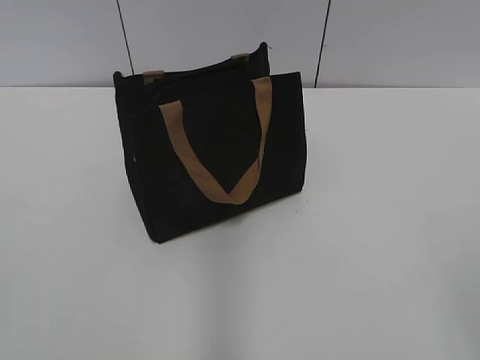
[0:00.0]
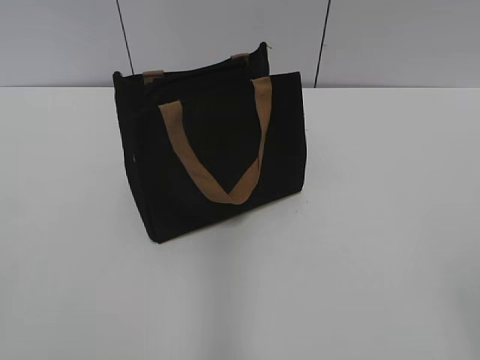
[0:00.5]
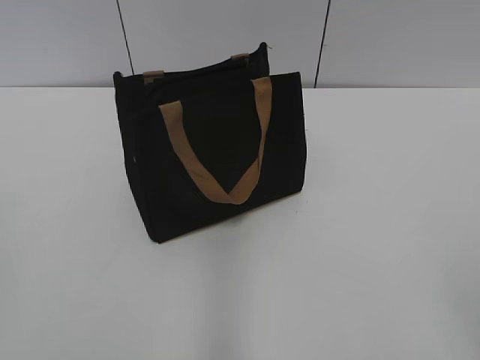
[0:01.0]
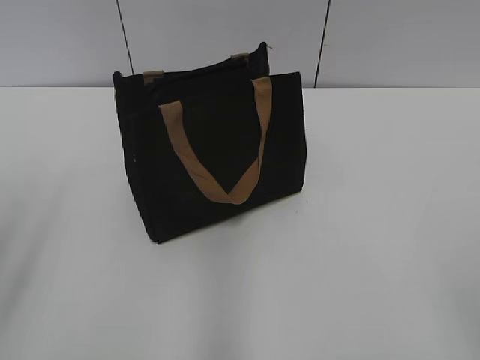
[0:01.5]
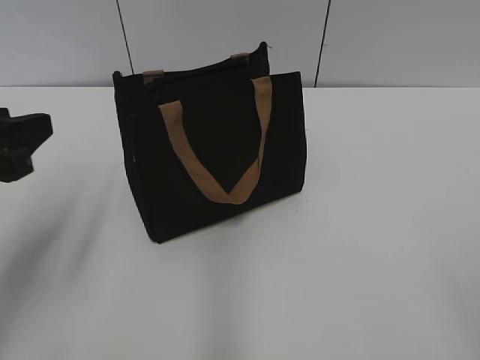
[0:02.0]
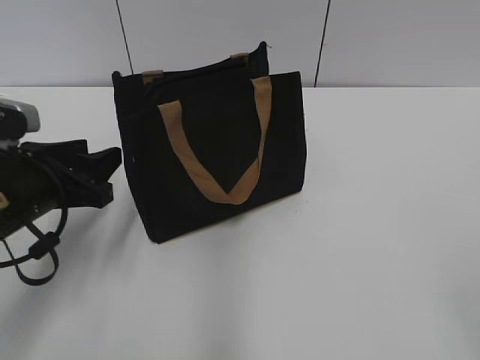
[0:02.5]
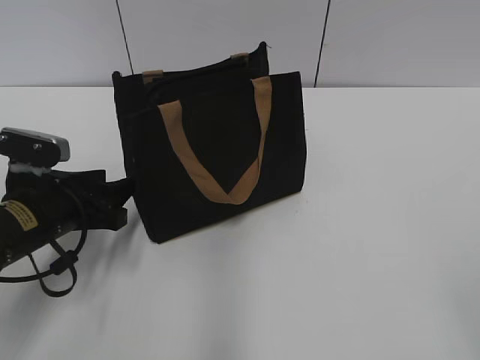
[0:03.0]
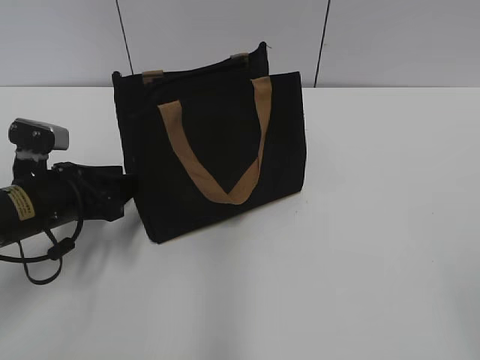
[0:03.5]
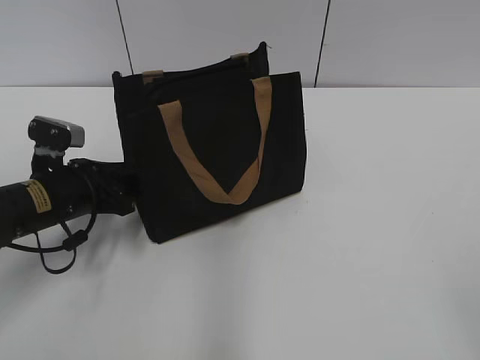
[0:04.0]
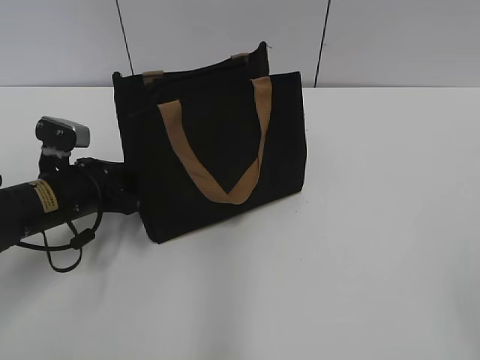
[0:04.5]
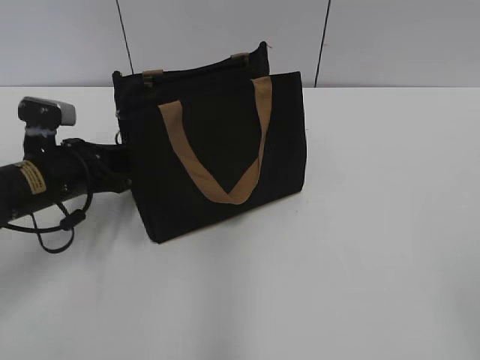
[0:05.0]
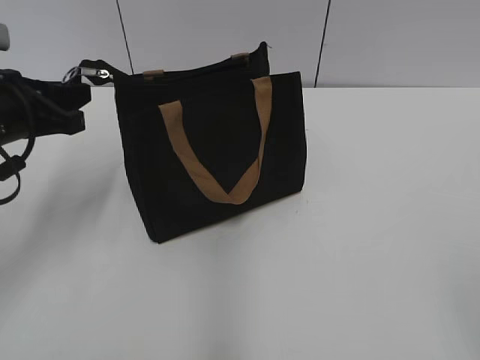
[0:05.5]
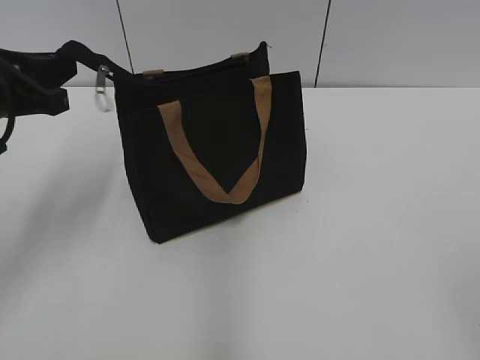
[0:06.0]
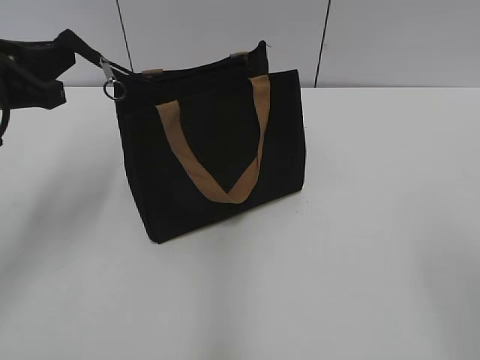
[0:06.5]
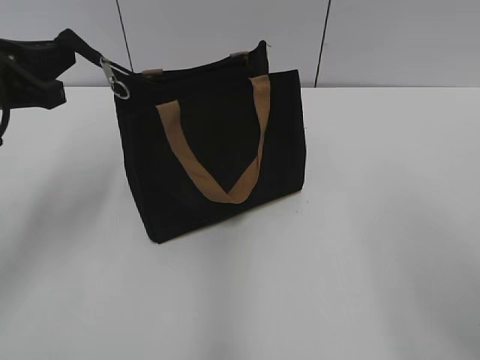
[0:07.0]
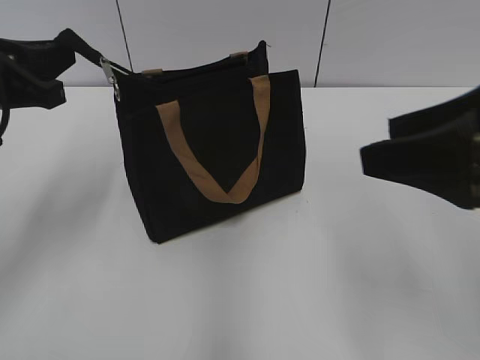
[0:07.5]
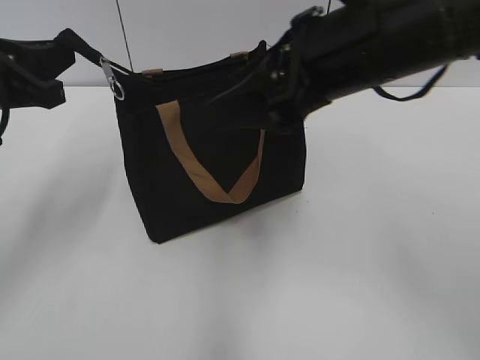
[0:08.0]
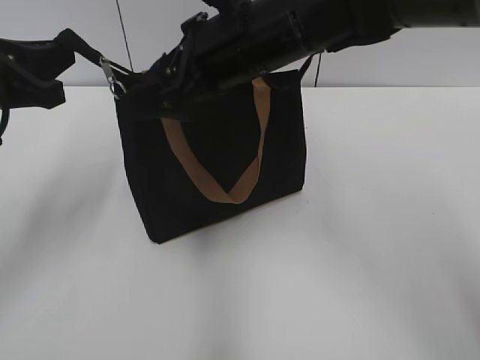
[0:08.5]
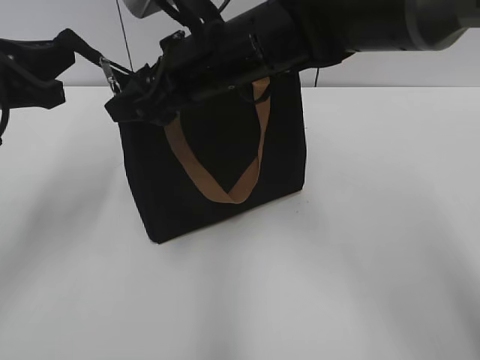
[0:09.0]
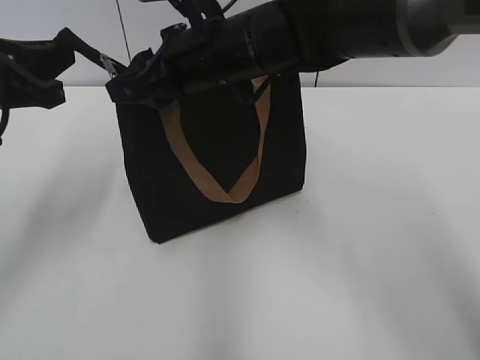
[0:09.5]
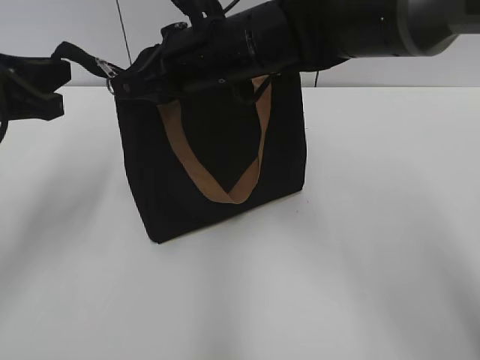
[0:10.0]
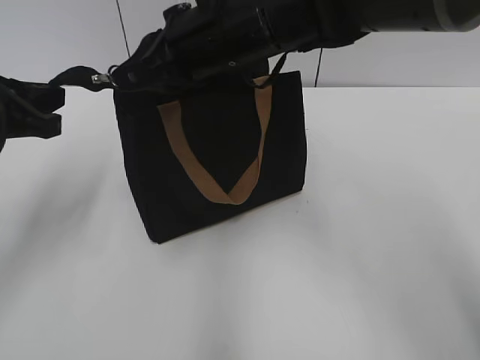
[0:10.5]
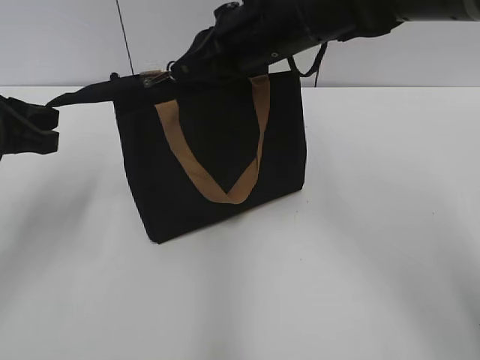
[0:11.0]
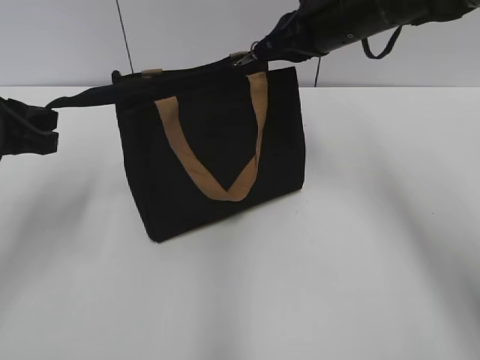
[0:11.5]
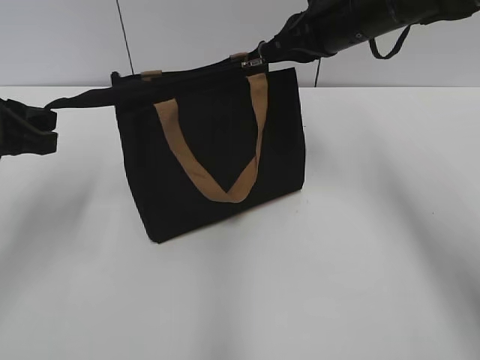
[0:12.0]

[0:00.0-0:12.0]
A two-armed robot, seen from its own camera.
0:02.0 to 0:04.0: The left gripper moves downward and forward, some 20 cm.
0:04.0 to 0:06.0: The left gripper shifts roughly 15 cm upward, and closes.
0:06.0 to 0:08.0: The right gripper moves forward and to the left, about 30 cm.
0:08.0 to 0:10.0: The right gripper shifts roughly 15 cm to the left, forward and downward, and closes its fingers.
0:10.0 to 0:12.0: The right gripper heads to the right and forward, covering about 15 cm.

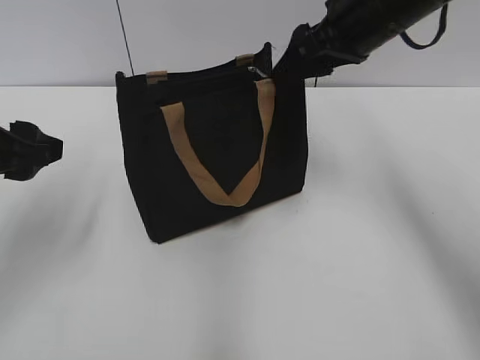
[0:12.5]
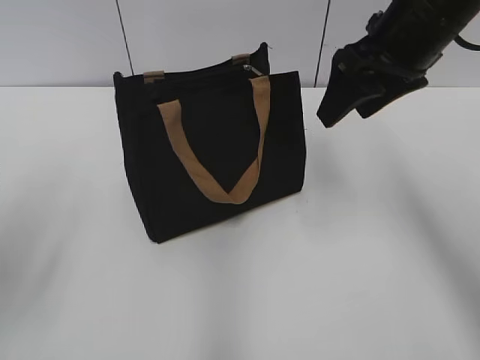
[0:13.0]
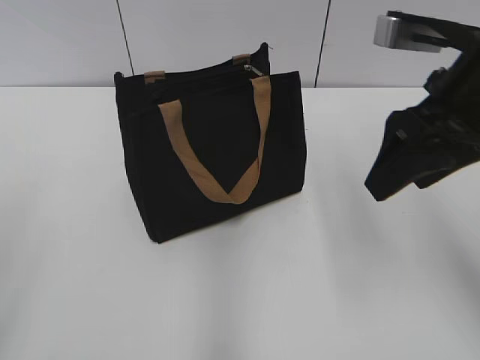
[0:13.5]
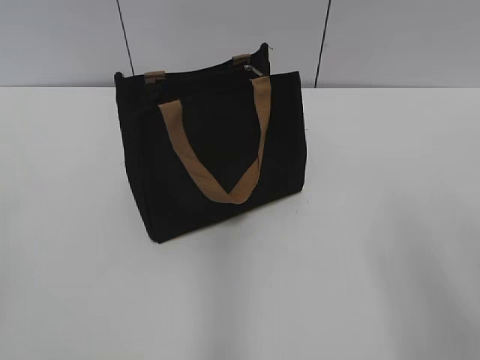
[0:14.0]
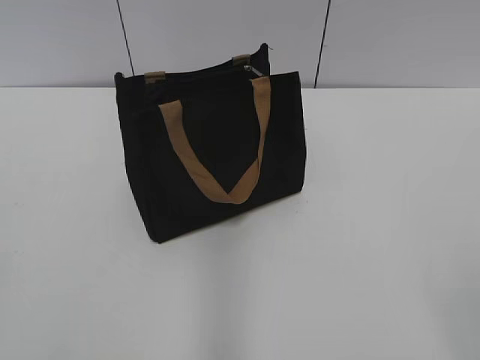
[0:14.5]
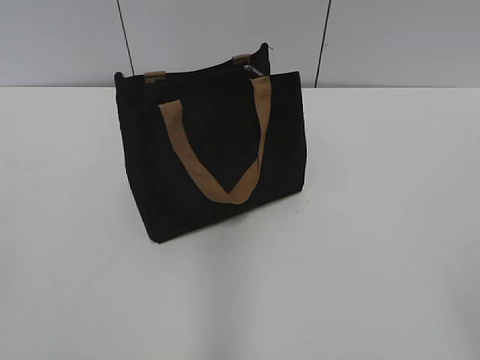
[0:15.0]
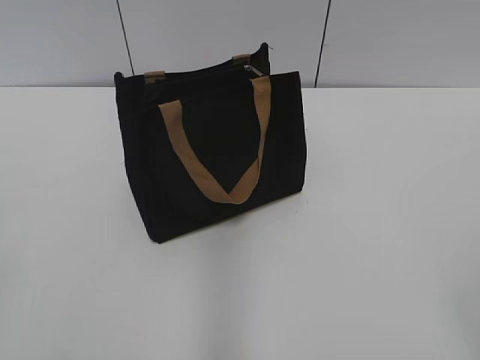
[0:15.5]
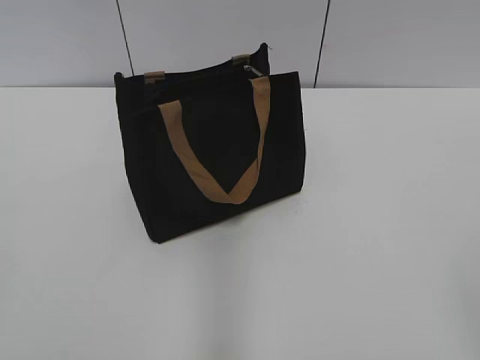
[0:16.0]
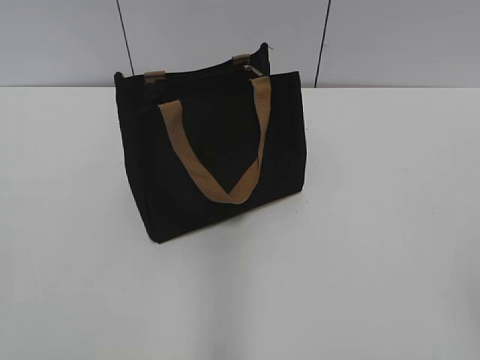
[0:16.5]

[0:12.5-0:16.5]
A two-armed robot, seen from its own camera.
0:12.5 to 0:14.5: The right gripper moves backward, about 40 cm, while the left gripper moves backward, approximately 25 cm.
